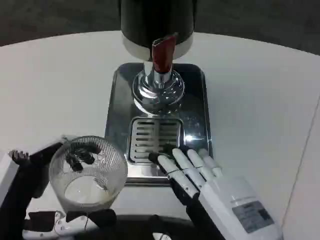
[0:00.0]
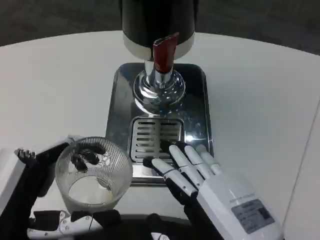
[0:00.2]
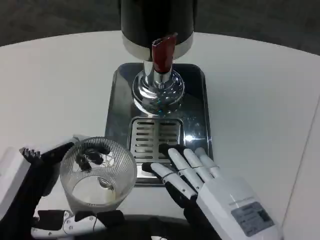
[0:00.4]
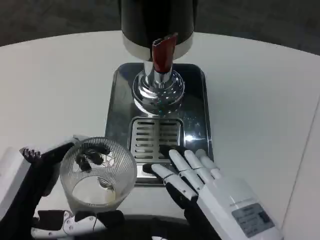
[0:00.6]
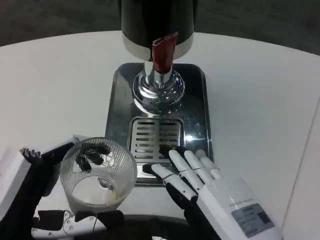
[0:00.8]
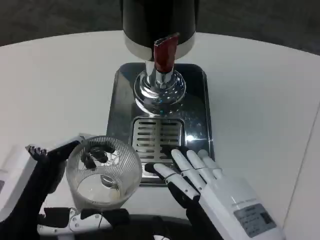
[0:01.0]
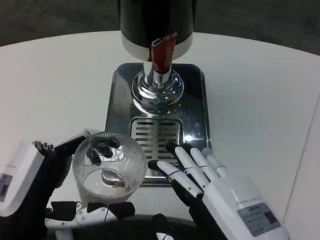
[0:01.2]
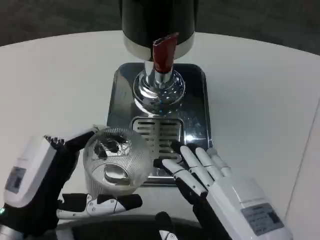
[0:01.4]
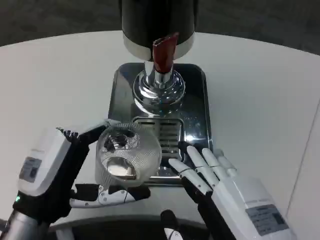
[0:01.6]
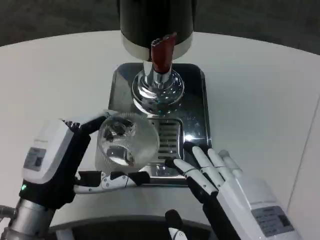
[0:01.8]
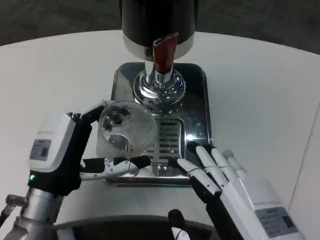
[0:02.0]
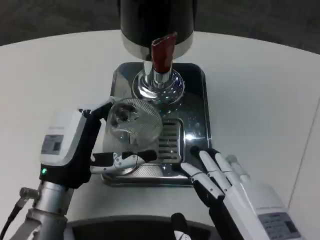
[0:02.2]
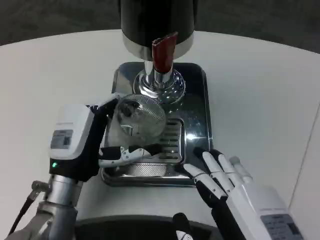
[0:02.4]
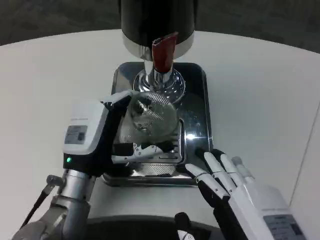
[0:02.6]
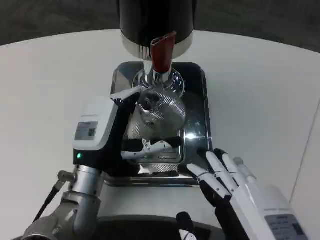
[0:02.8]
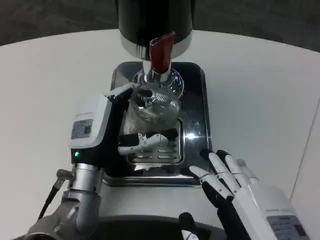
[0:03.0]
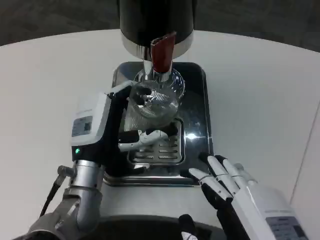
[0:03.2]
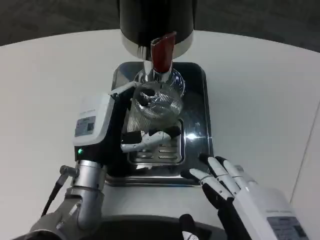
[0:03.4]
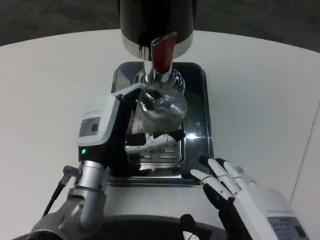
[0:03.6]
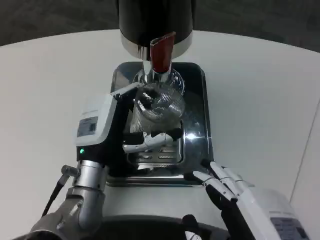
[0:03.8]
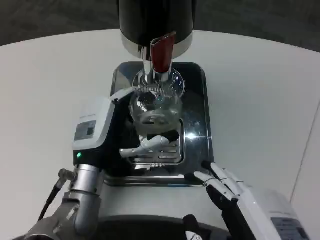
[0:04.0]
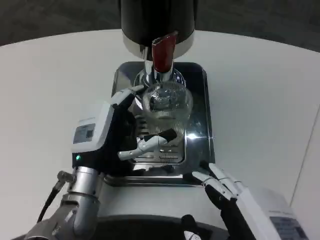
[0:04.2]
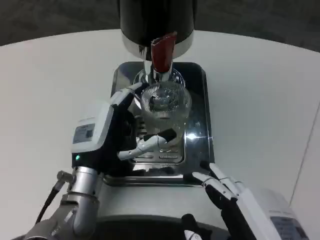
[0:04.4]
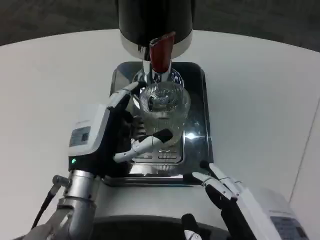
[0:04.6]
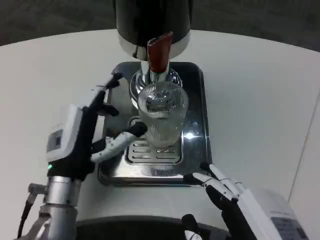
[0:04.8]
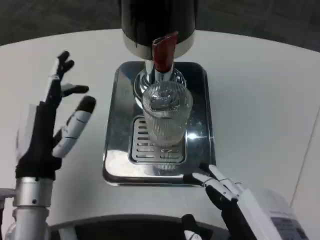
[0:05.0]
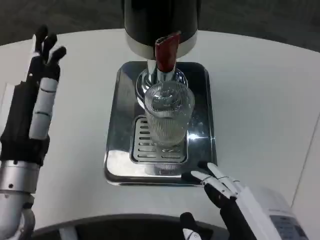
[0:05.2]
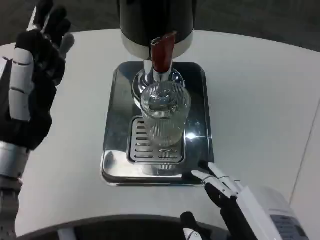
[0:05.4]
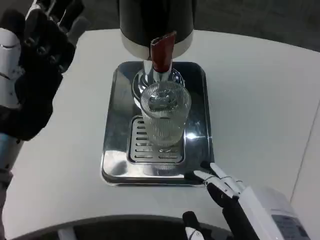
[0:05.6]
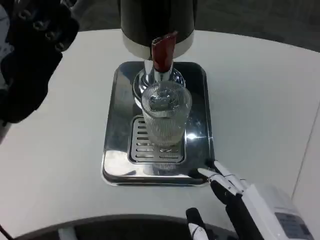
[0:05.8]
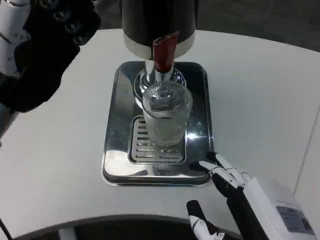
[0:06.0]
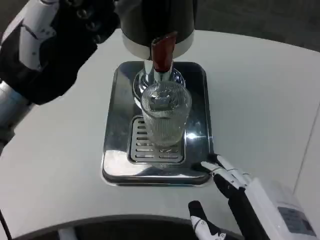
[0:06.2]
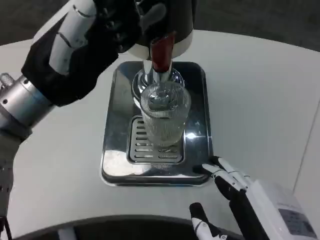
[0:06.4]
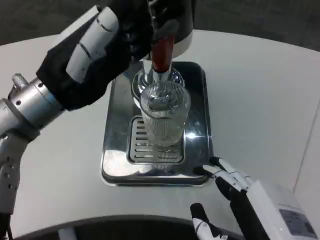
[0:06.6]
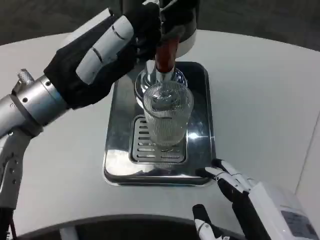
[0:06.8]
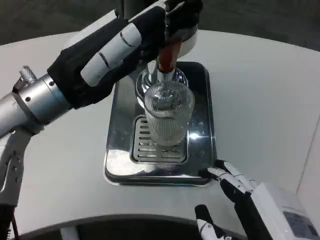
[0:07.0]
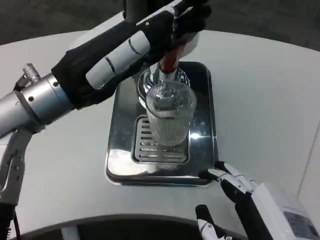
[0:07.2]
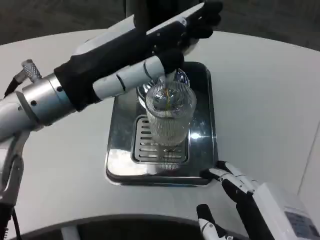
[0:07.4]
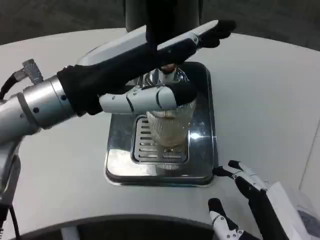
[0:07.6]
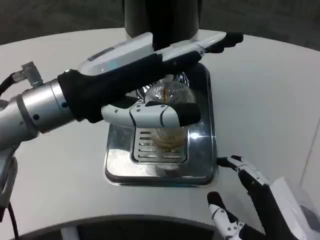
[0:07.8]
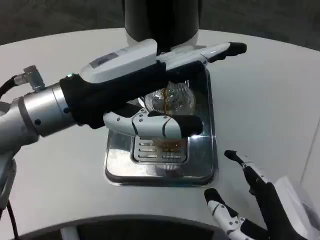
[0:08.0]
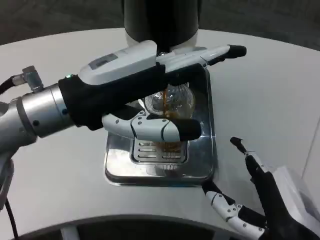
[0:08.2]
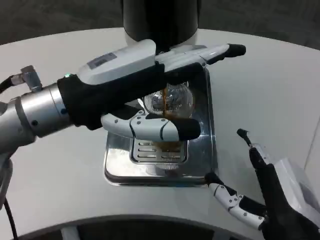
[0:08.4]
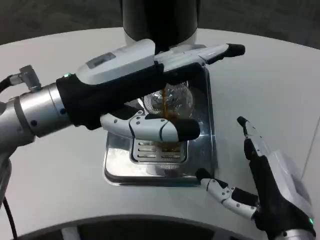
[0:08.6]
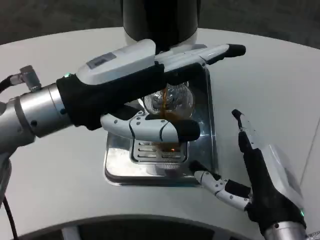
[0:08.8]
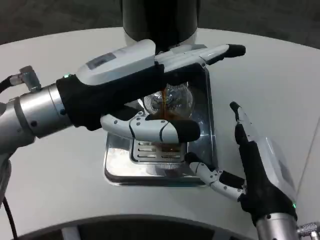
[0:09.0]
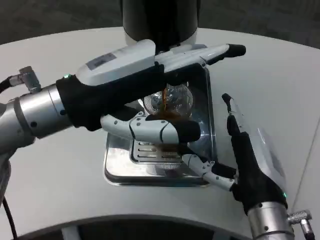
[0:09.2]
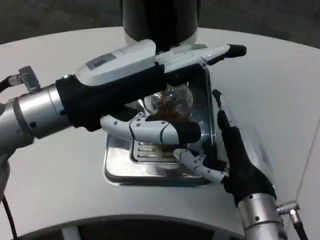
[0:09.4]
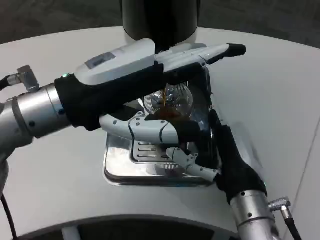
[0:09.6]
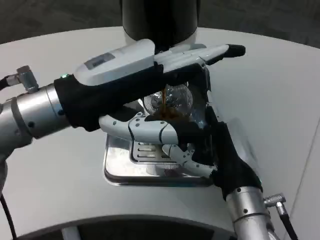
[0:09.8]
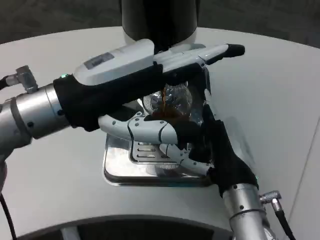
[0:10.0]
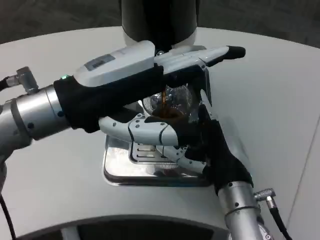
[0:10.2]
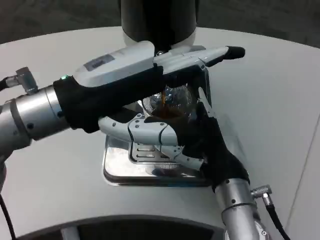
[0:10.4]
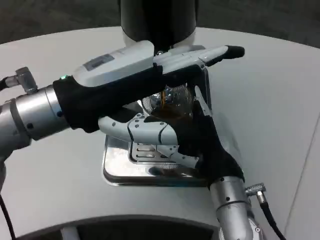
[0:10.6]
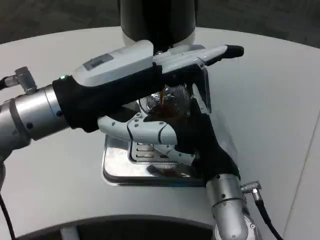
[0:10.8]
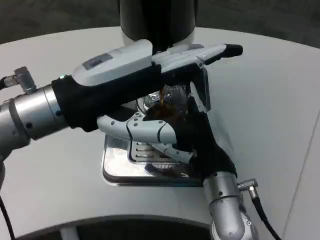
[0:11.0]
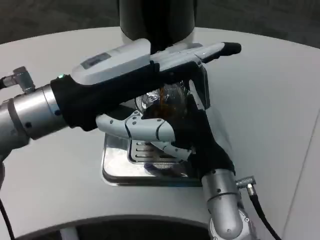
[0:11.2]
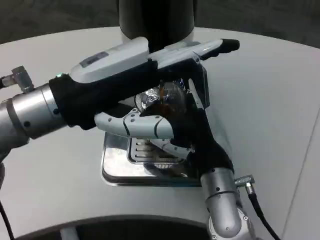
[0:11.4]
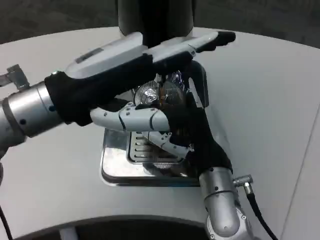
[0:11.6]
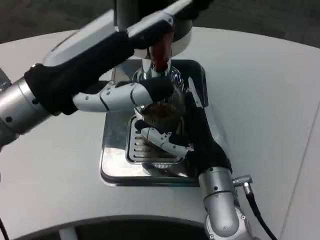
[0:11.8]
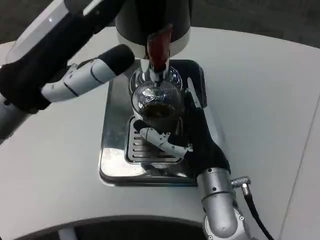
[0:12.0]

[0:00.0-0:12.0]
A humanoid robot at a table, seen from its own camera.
Task of the whole recording: Grasp the cup under the faucet to collect the drink, then remove the cup.
0:00.0 to 0:01.6: The left hand heads forward, covering some 5 cm.
0:01.6 to 0:03.0: The left hand travels forward and to the right by approximately 10 cm.
0:03.0 to 0:04.4: The hands move only a little.
0:04.4 to 0:06.0: The left hand heads upward and to the left, covering some 20 cm.
0:06.0 to 0:07.6: The left hand shifts by about 5 cm.
0:07.6 to 0:09.0: The right hand shifts about 10 cm forward.
0:09.0 to 0:10.4: The right hand is displaced forward by roughly 5 cm.

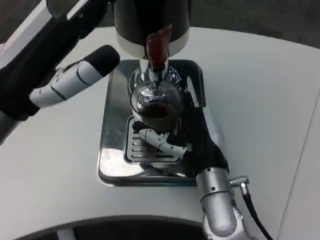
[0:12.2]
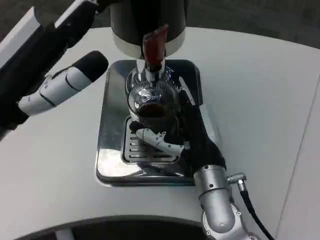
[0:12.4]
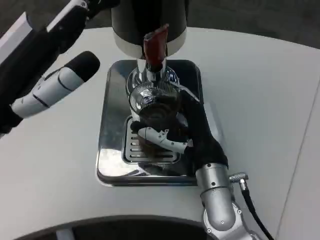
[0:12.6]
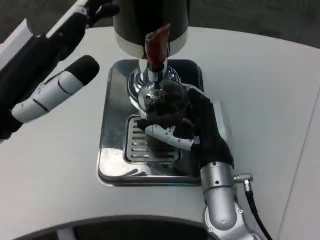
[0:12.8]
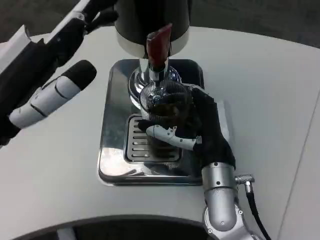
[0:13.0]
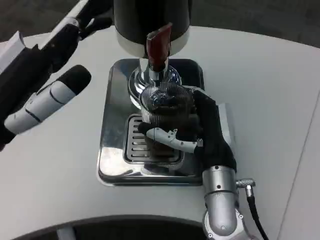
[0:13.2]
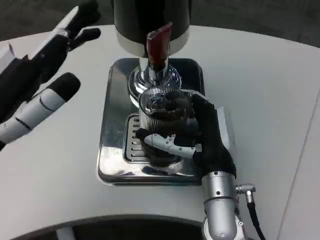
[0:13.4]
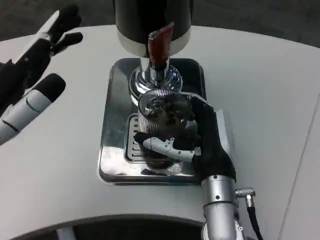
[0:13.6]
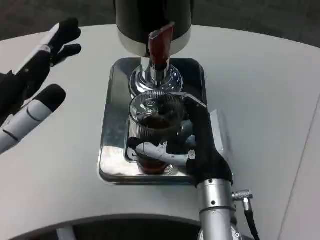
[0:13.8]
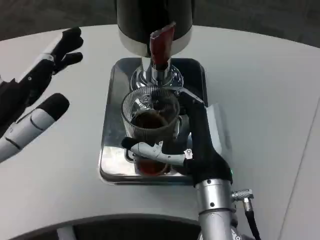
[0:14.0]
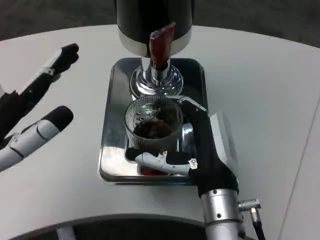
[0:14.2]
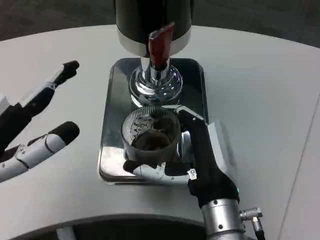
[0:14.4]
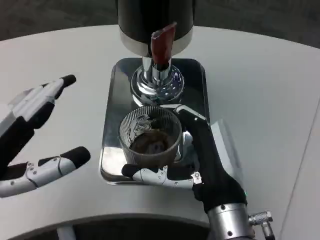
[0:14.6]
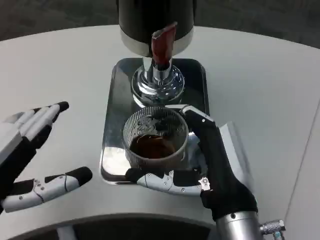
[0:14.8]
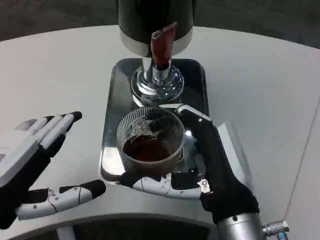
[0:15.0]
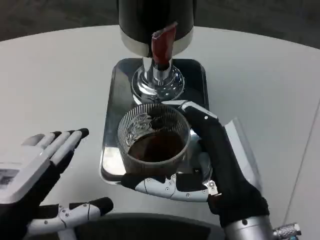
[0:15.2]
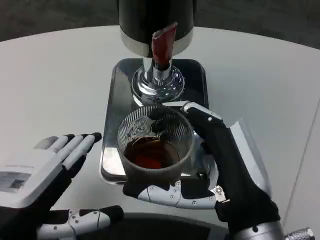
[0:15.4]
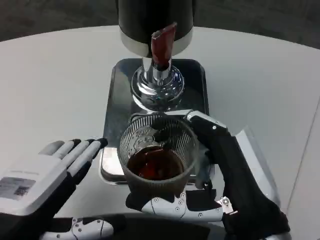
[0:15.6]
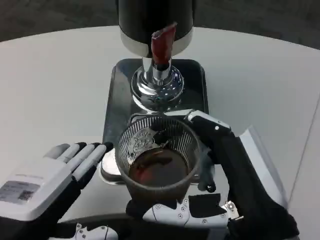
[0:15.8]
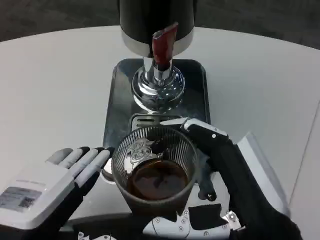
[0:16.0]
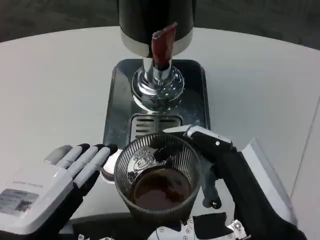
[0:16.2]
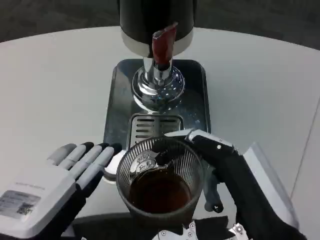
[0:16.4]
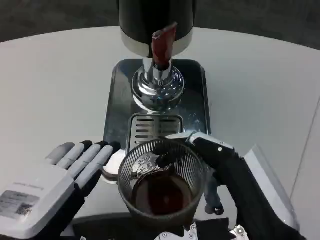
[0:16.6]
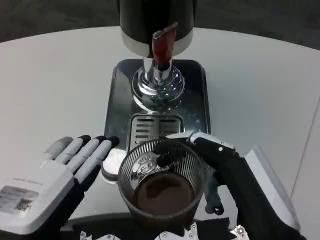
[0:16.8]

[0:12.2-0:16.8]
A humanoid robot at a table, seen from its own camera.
Task of the whole recording: Grasp the cup under the faucet to collect the drink, then remove the cup.
0:12.2 to 0:13.8: The left hand shifts about 5 cm backward.
0:13.8 to 0:15.2: The right hand goes about 10 cm backward. The left hand heads backward, covering roughly 5 cm.
0:15.2 to 0:16.8: The right hand heads backward, covering approximately 5 cm.

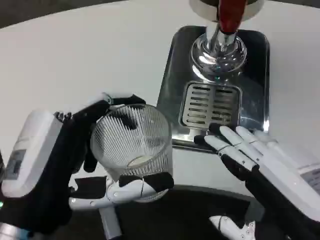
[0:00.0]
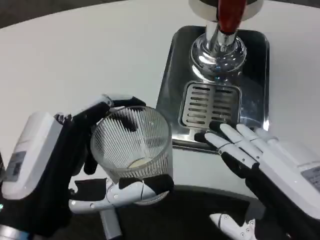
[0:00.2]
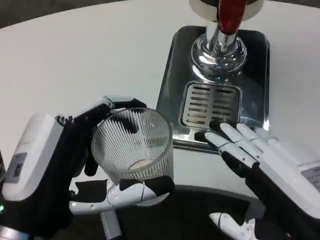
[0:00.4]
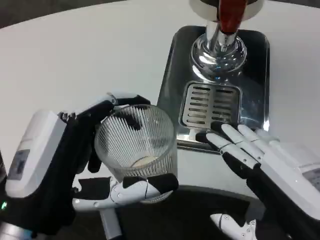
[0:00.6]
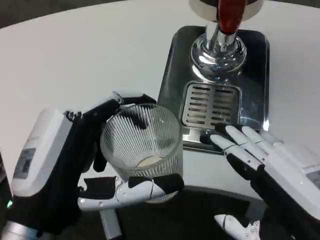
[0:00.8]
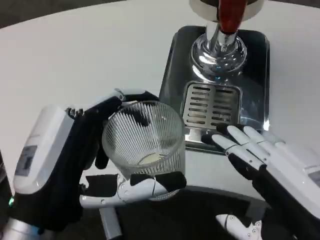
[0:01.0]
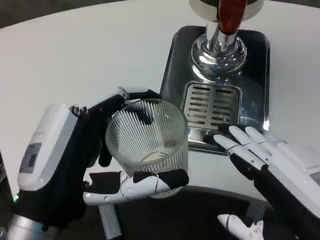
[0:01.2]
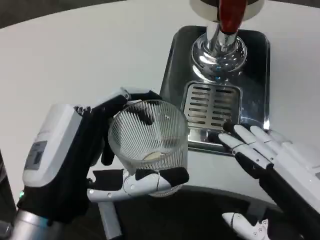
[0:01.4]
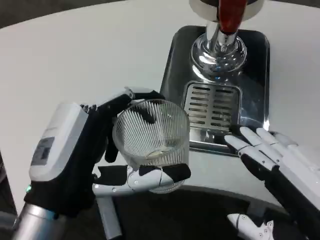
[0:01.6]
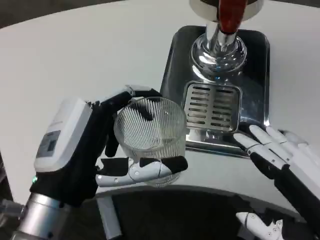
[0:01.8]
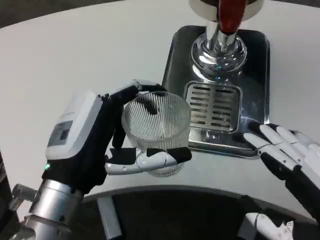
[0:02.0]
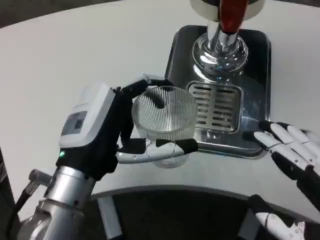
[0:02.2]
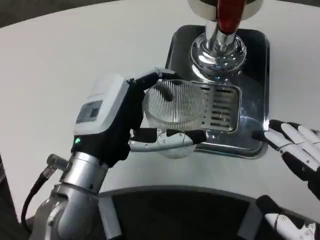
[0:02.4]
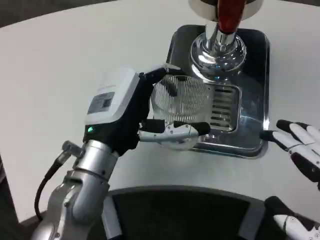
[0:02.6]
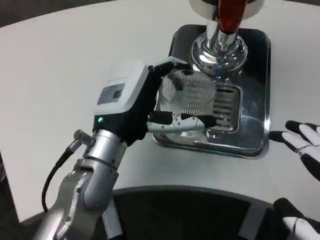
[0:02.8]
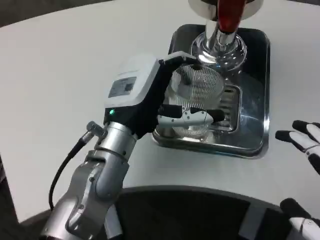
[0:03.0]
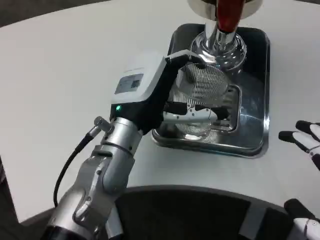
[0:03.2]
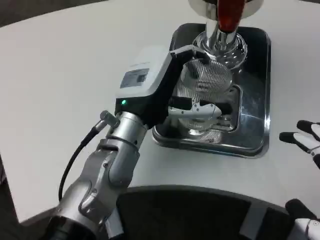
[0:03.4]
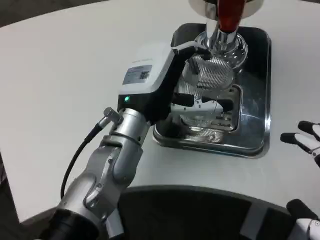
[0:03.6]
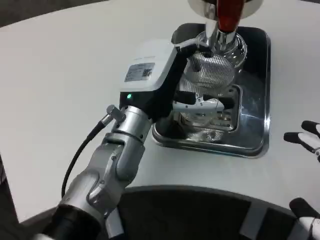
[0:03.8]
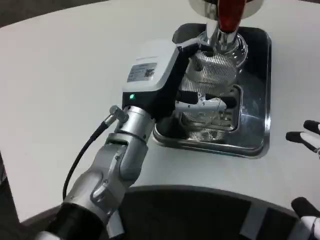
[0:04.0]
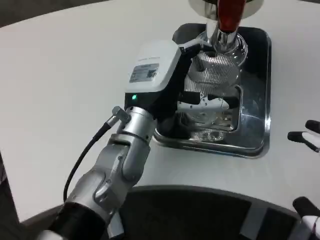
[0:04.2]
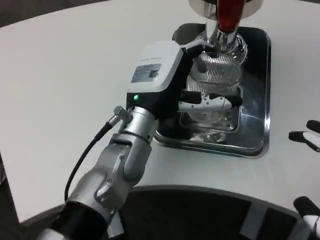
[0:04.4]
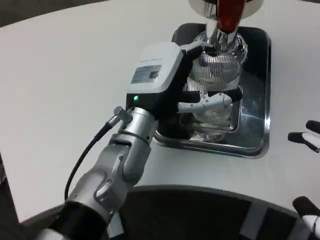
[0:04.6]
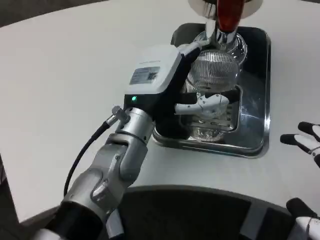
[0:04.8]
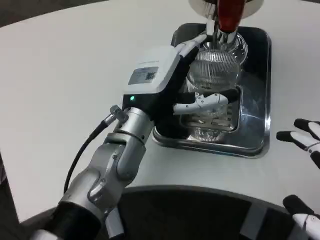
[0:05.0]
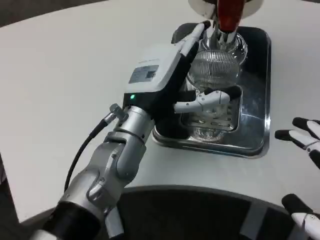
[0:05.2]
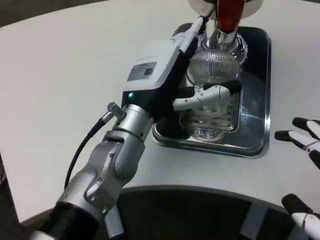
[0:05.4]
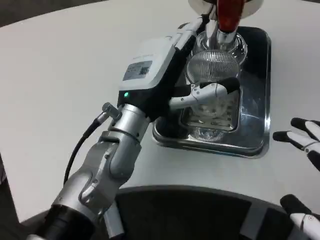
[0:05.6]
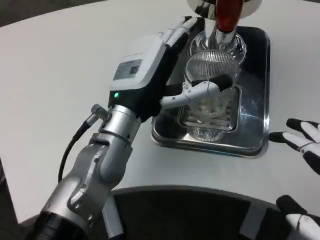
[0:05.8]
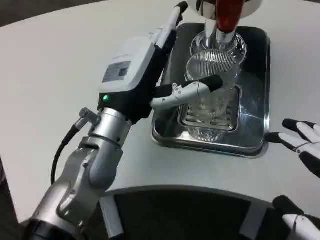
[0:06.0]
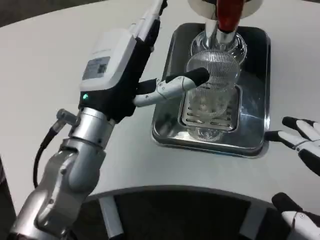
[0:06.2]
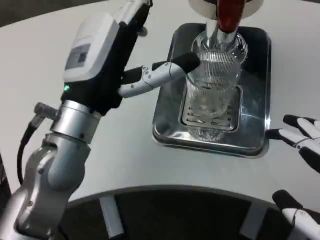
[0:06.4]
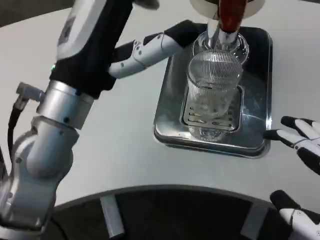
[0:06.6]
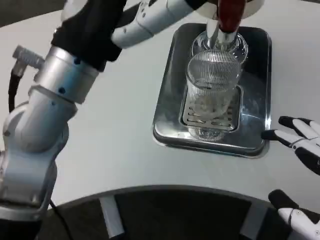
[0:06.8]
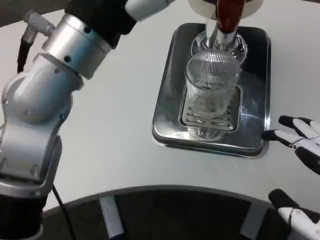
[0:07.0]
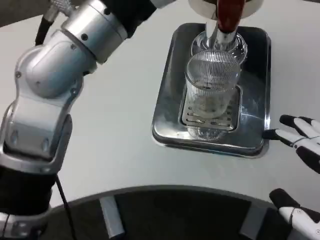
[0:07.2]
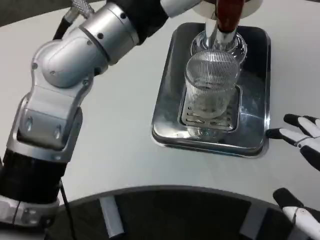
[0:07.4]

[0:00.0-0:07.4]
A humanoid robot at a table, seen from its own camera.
Task of the whole recording: Grasp the cup under the faucet to collect the drink, then remove the cup.
0:01.4 to 0:03.0: The left hand travels forward and to the right by approximately 15 cm. The right hand shifts by some 5 cm.
0:06.0 to 0:07.4: The left hand heads upward, covering roughly 15 cm.
